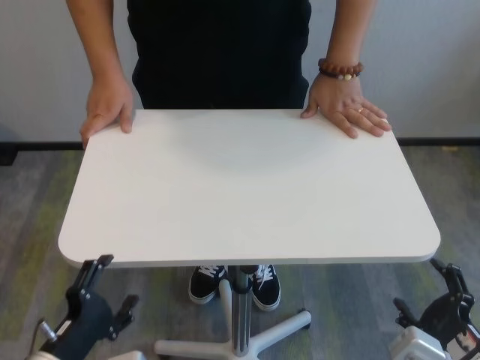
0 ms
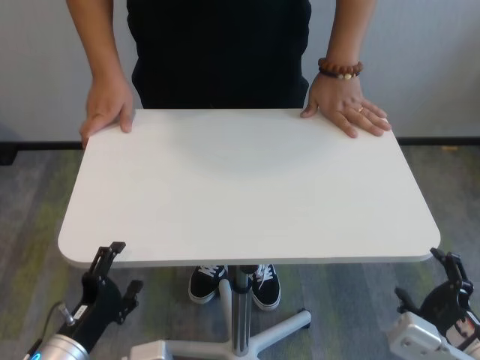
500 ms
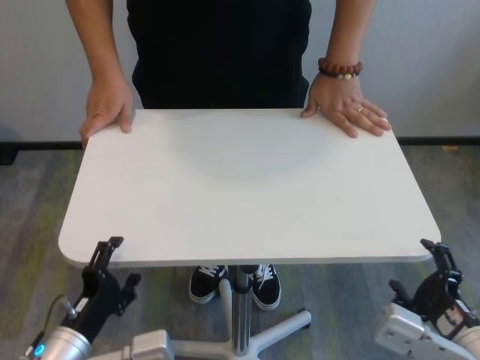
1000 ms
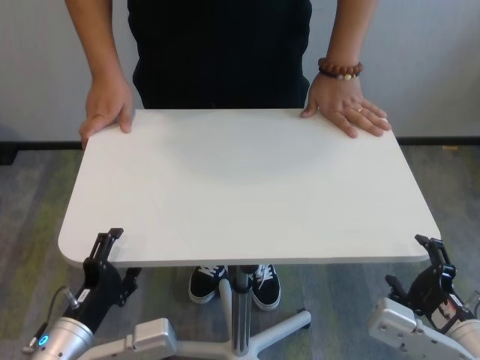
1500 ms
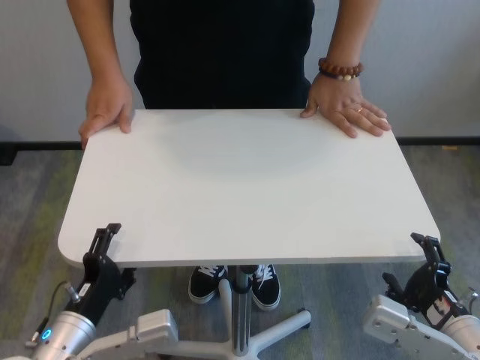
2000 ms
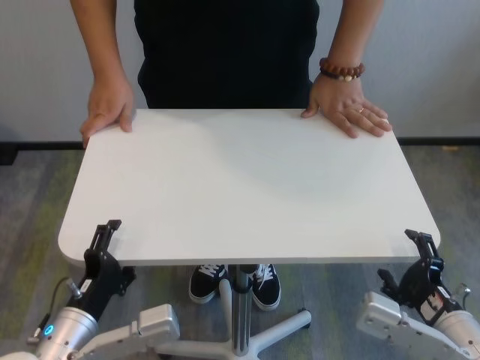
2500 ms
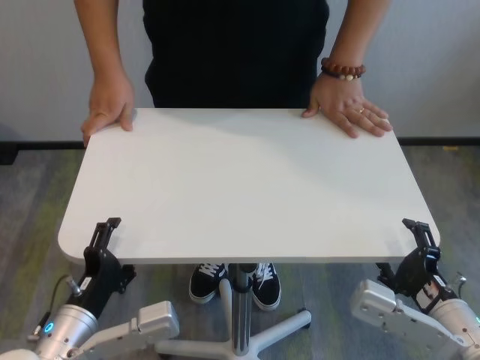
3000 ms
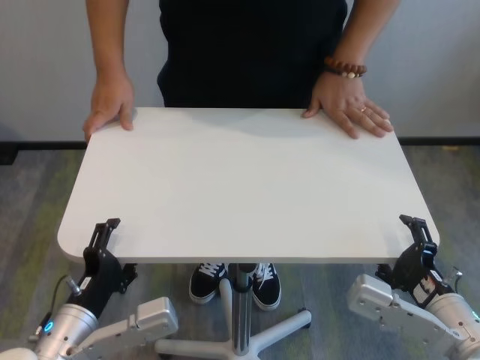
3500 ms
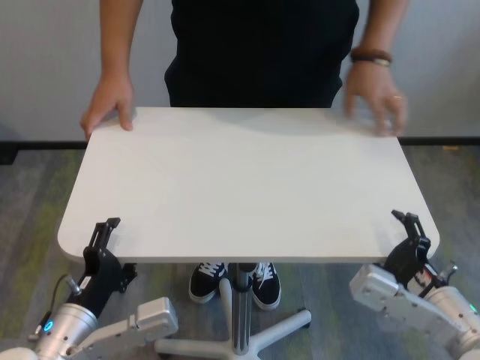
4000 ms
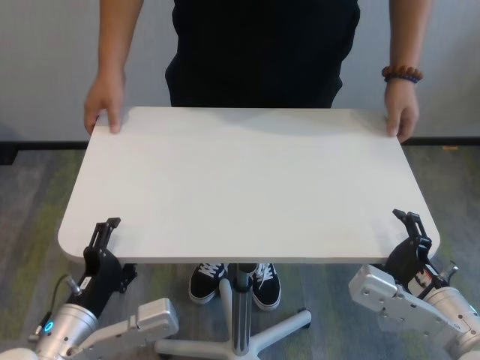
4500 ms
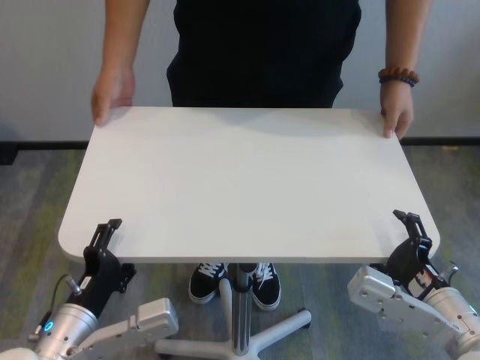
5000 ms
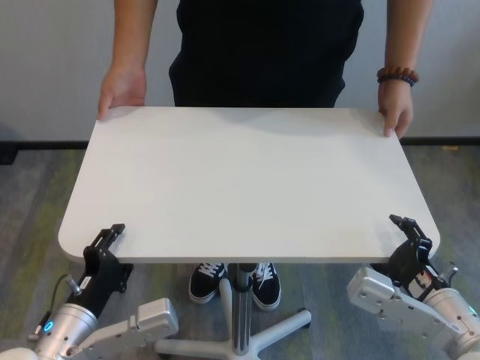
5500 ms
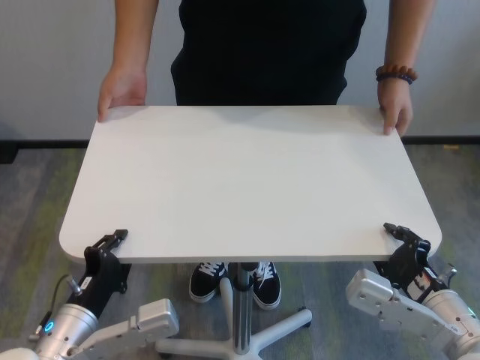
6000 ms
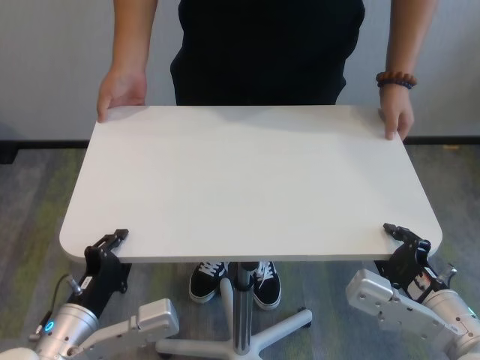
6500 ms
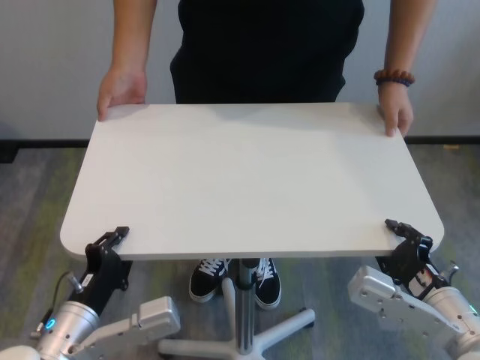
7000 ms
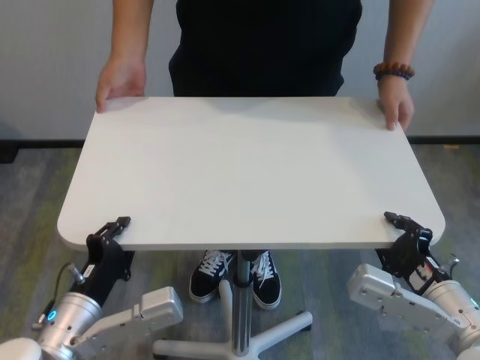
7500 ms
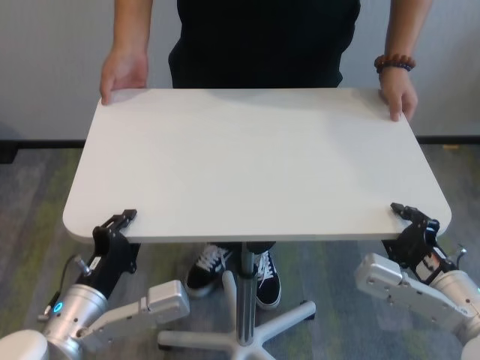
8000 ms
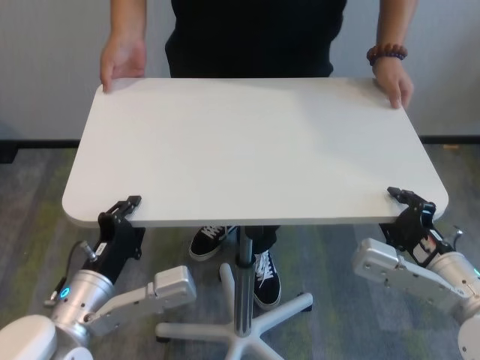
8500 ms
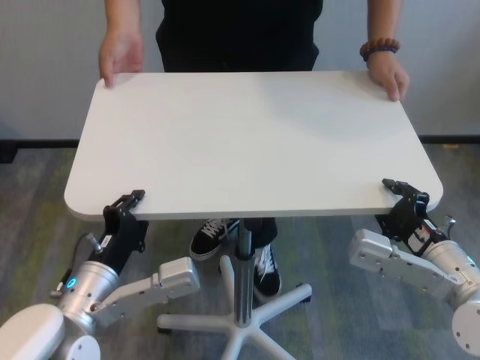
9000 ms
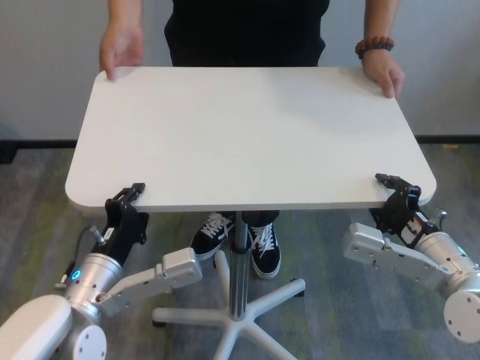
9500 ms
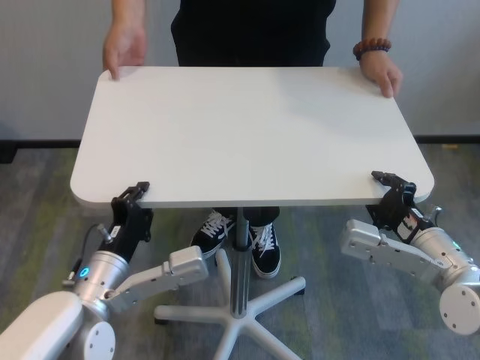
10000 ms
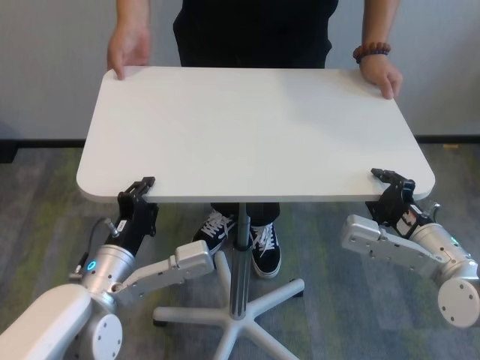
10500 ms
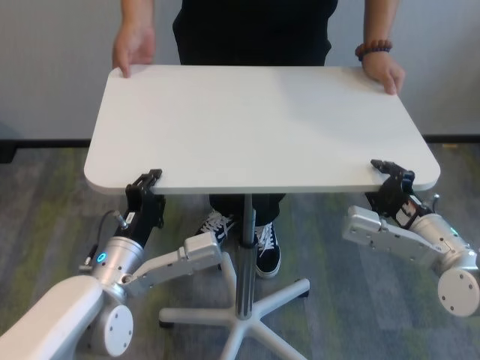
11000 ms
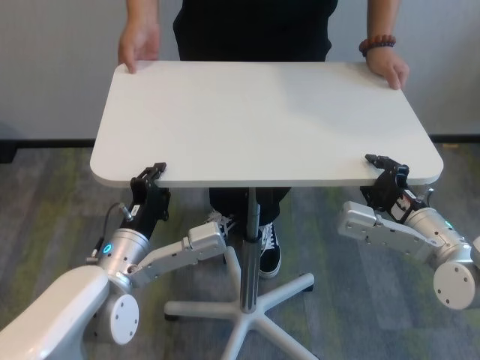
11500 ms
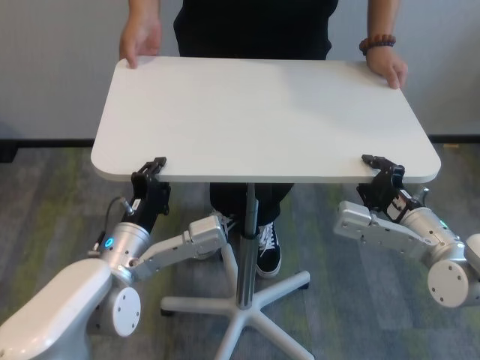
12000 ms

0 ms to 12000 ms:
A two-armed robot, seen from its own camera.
Task of the whole recording: human machine collaborative table moving.
Step, 0 ms to 6500 ms: Grasp the table with both grippers.

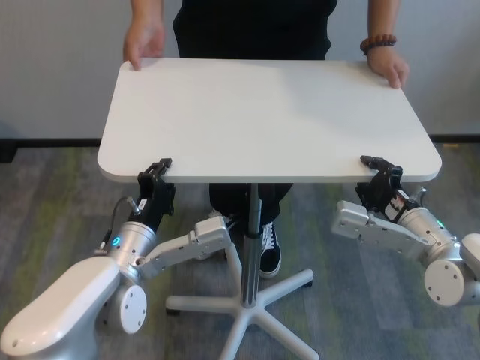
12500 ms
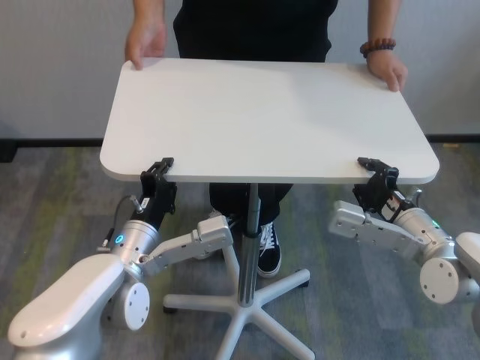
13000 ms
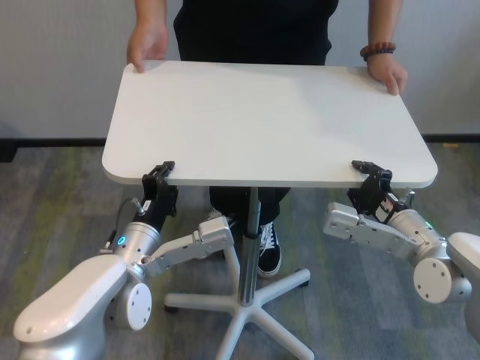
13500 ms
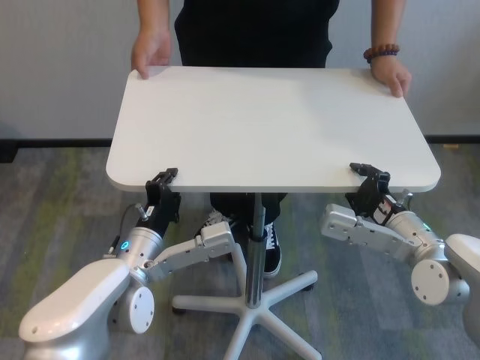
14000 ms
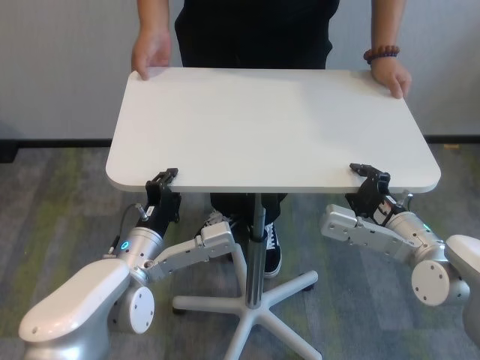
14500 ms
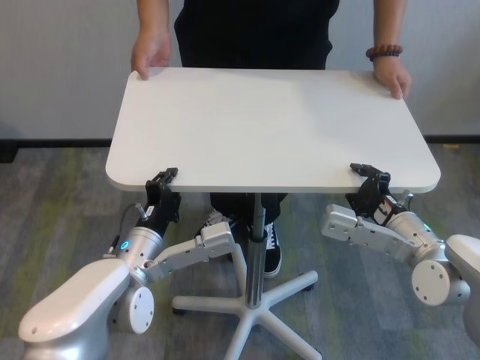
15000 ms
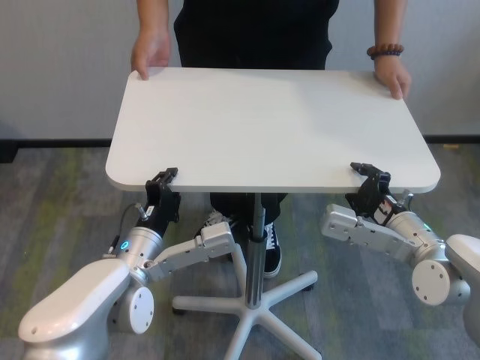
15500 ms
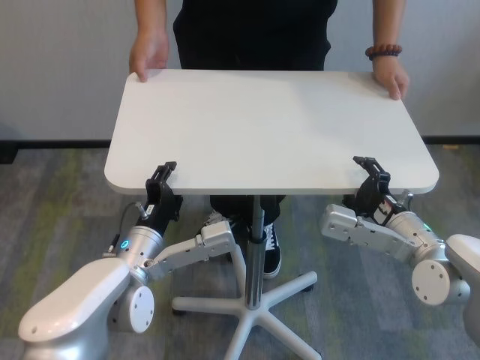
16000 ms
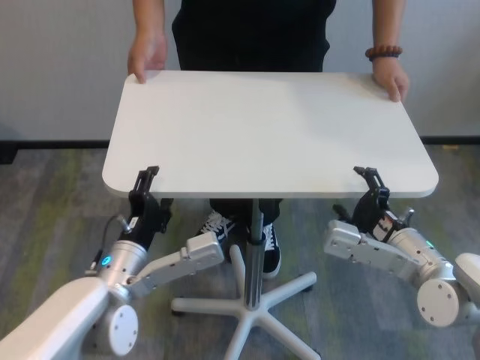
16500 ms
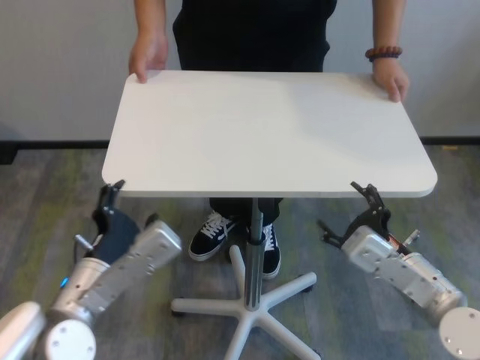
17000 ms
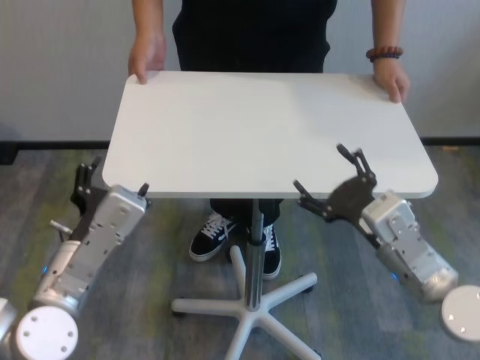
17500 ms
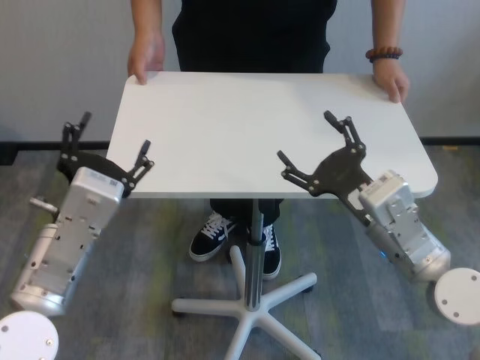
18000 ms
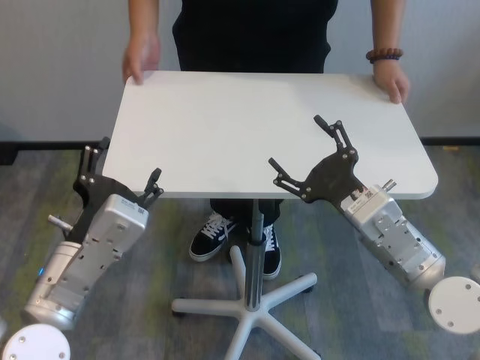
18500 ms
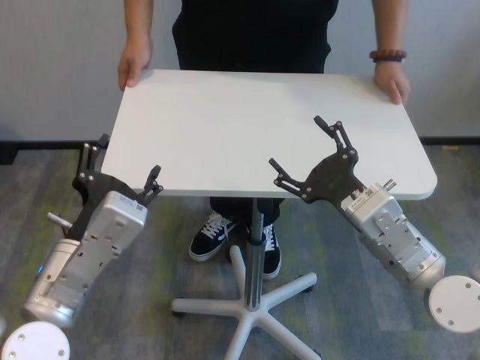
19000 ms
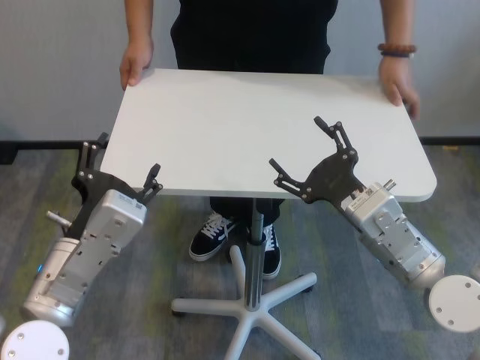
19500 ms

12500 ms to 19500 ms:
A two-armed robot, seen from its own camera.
Task of the whole recording: human machine collaborative table moving.
Step, 12500 ms to 16000 ms: Move the table forward with both grippers.
